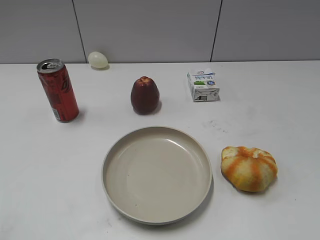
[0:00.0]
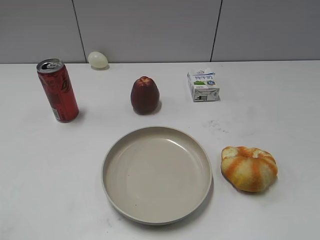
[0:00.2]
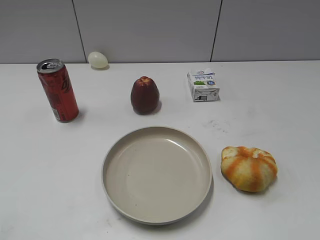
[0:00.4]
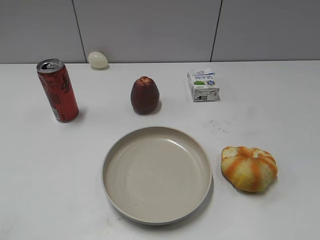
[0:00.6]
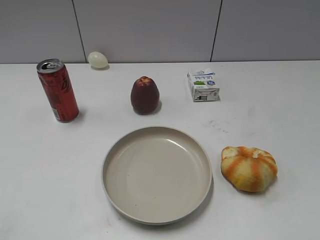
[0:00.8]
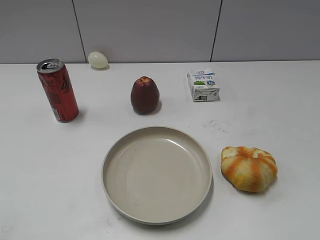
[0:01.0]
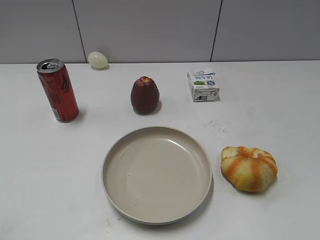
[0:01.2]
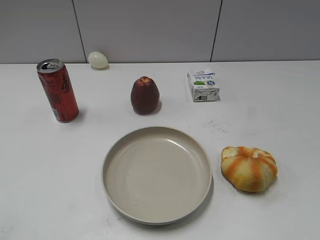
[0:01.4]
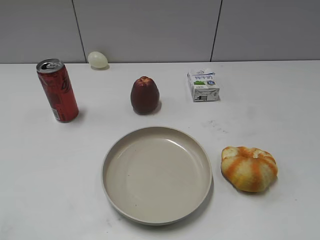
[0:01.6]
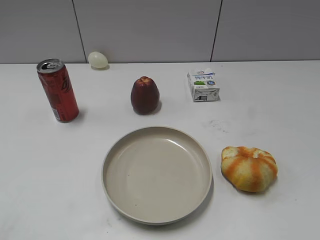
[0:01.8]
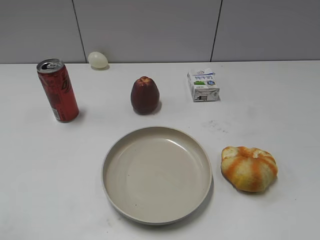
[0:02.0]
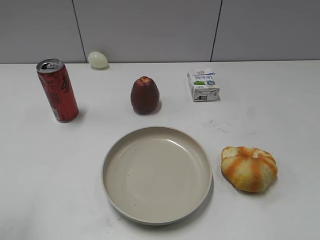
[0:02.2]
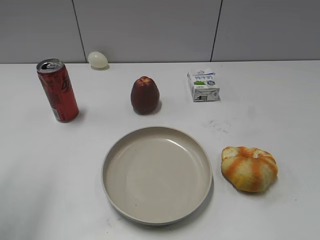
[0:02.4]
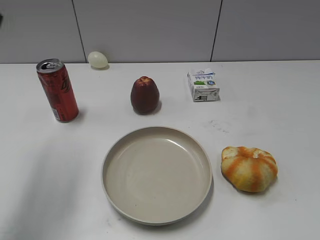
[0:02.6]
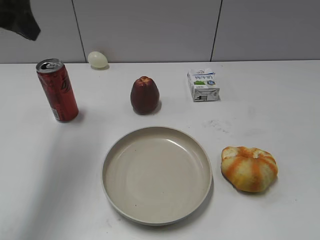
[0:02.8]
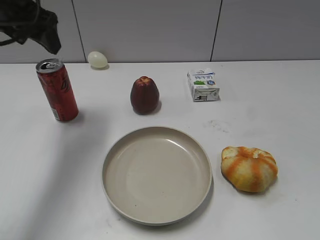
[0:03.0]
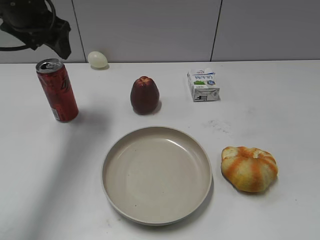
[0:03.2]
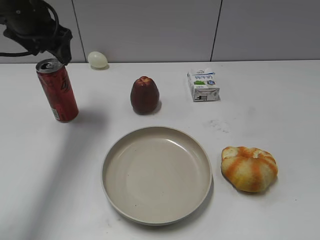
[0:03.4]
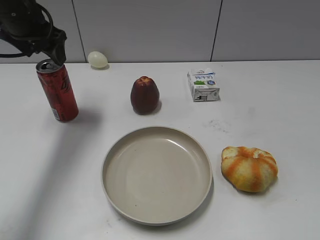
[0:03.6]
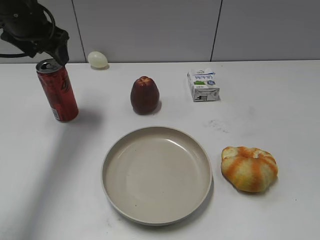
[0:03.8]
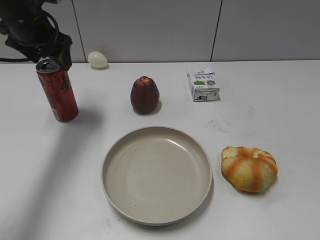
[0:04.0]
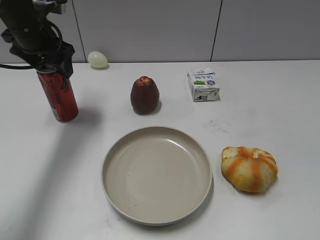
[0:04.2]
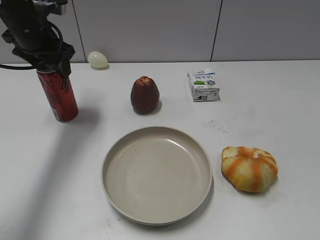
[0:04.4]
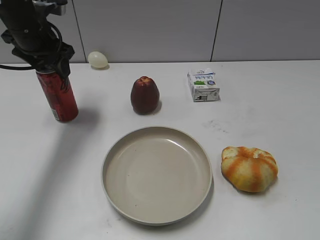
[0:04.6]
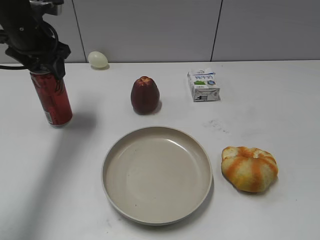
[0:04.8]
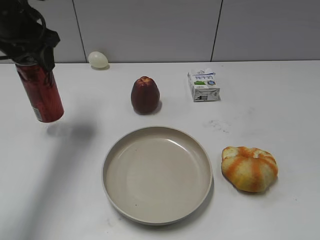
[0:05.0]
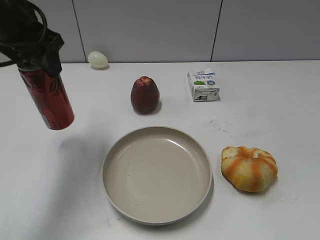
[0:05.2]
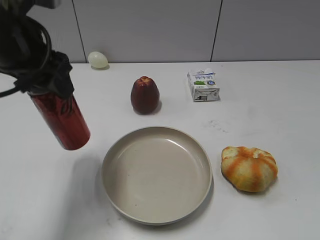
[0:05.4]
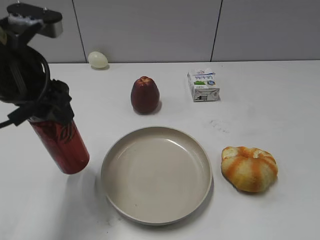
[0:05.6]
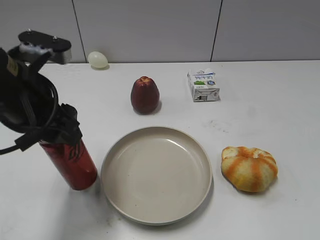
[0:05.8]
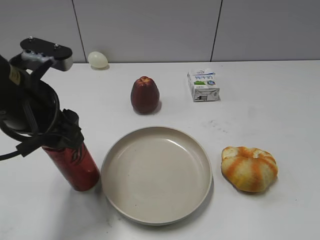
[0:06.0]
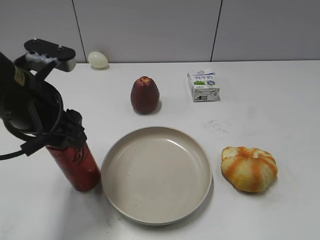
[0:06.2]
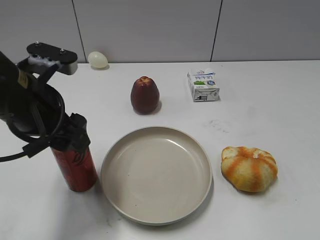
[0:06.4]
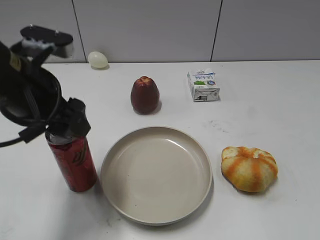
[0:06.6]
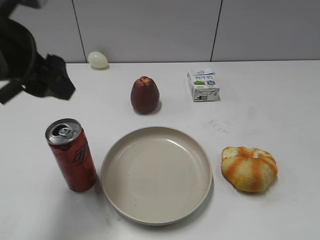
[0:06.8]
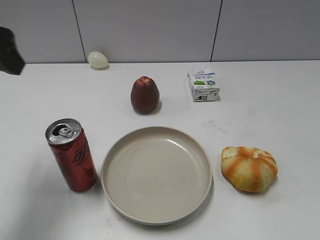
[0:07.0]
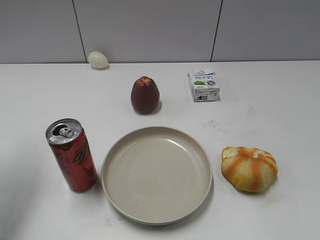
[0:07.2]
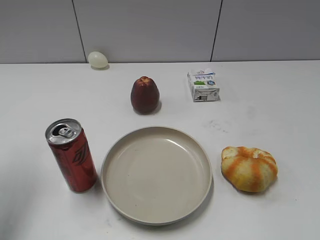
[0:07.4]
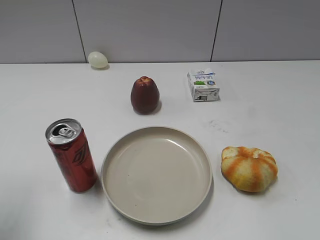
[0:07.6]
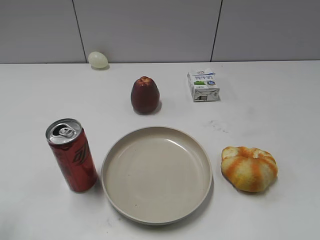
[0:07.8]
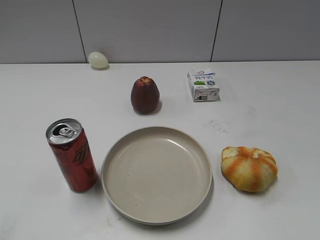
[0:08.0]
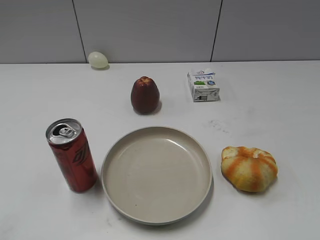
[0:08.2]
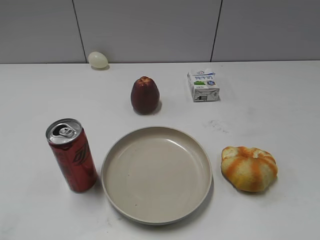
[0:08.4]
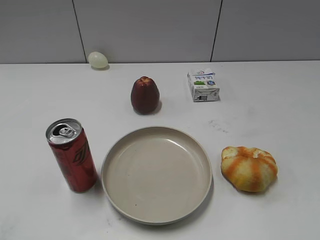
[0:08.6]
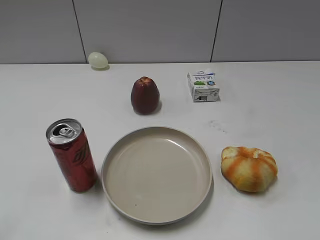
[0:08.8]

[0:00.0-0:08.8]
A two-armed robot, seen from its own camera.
Step, 0:01.6 to 0:04.4: Grasp the cola with left gripper.
Step, 0:04.6 to 0:06.6: Place the cola on the table with left gripper.
0:01.4 to 0:03.0: The left gripper is displaced forward by roughly 35 cm, and opens.
0:03.0 to 0:04.4: The left gripper heads downward and forward, covering approximately 10 cm.
0:04.4 to 0:05.8: The left gripper moves backward, about 20 cm.
0:05.8 to 0:07.4: The left gripper heads to the left and upward, covering roughly 15 cm.
0:07.4 to 0:08.8: The left gripper travels backward by about 25 cm.
